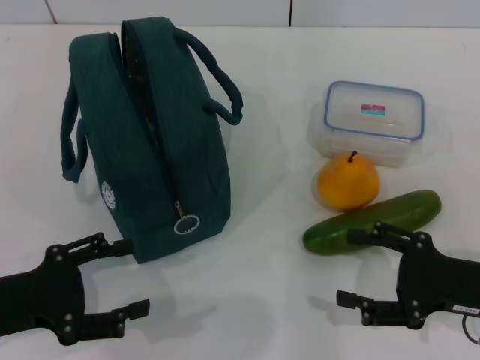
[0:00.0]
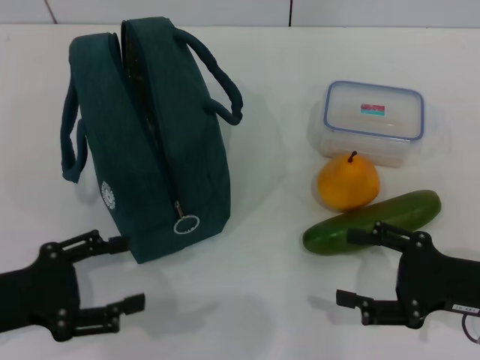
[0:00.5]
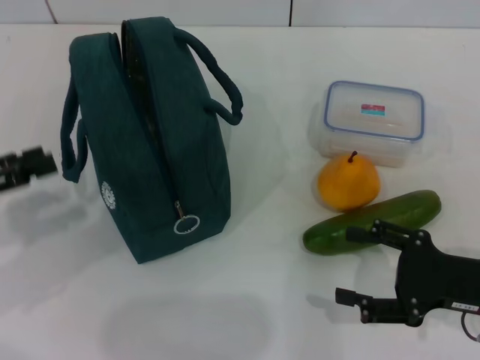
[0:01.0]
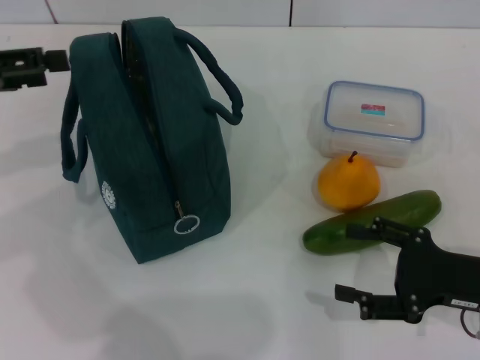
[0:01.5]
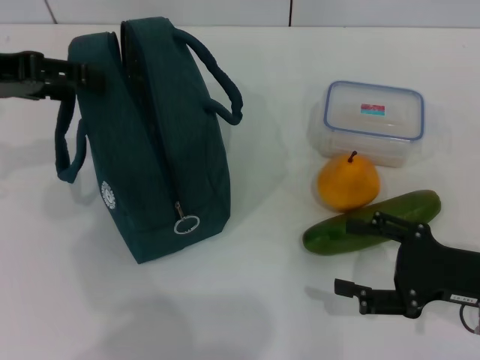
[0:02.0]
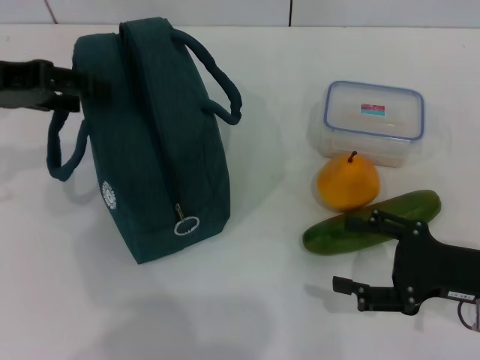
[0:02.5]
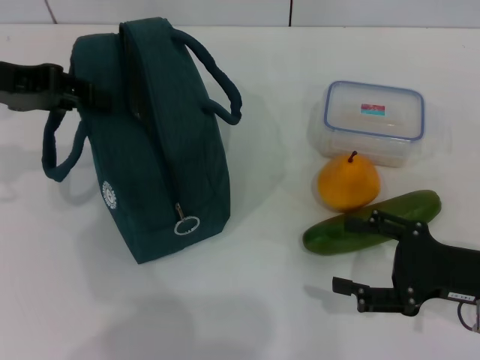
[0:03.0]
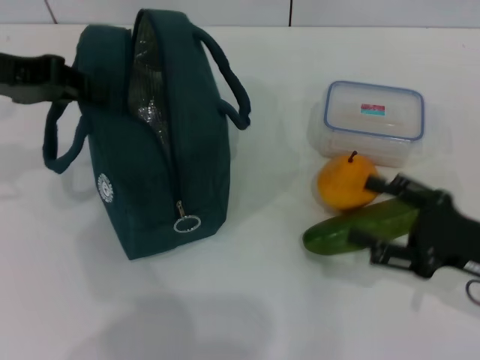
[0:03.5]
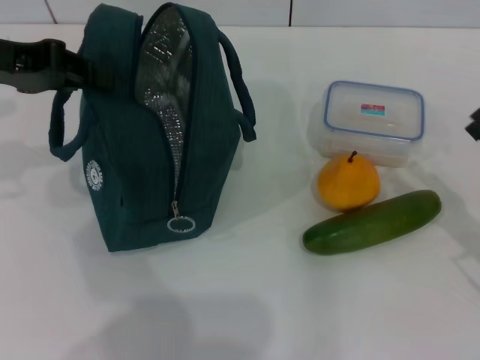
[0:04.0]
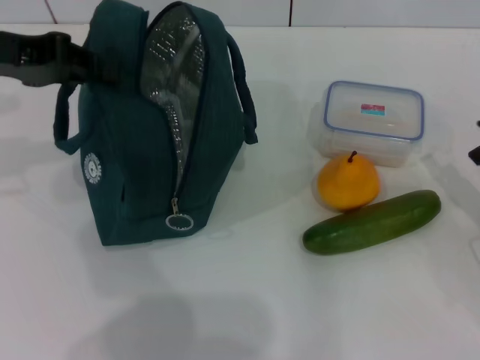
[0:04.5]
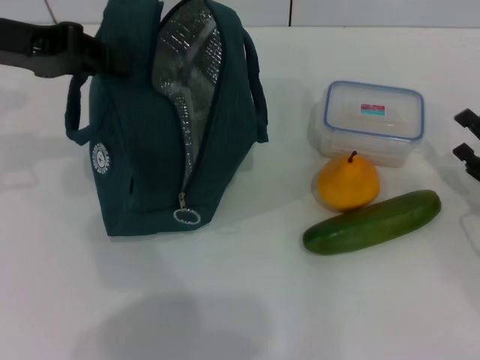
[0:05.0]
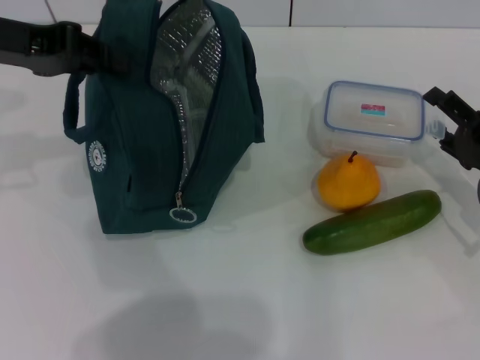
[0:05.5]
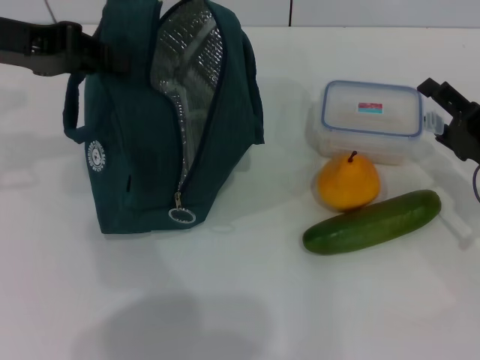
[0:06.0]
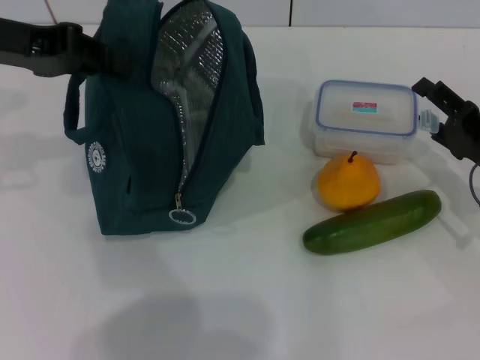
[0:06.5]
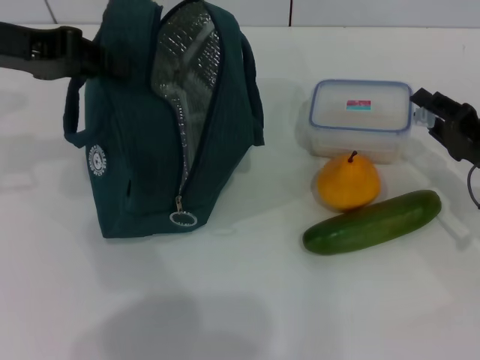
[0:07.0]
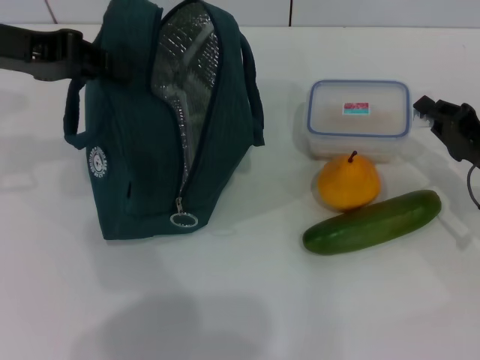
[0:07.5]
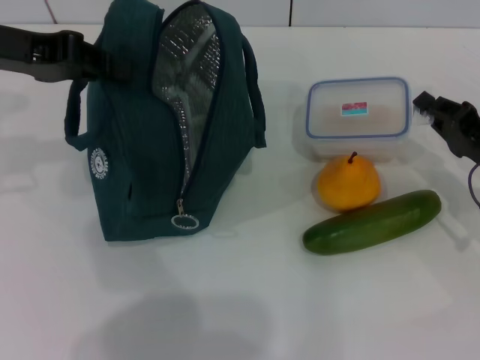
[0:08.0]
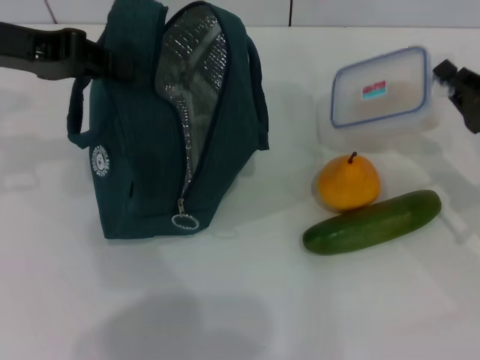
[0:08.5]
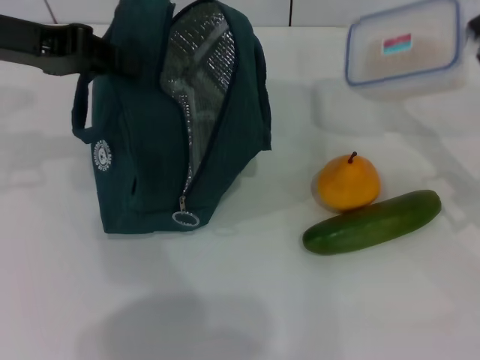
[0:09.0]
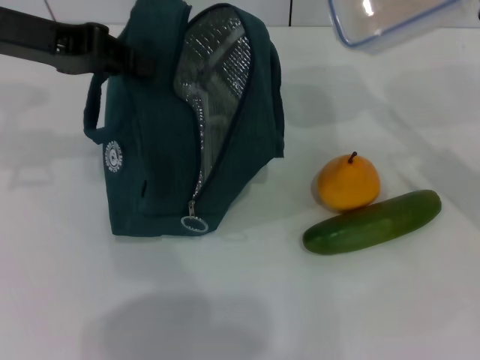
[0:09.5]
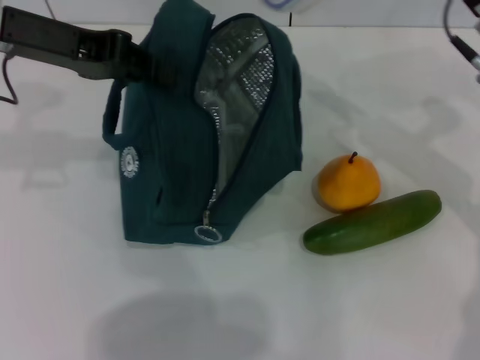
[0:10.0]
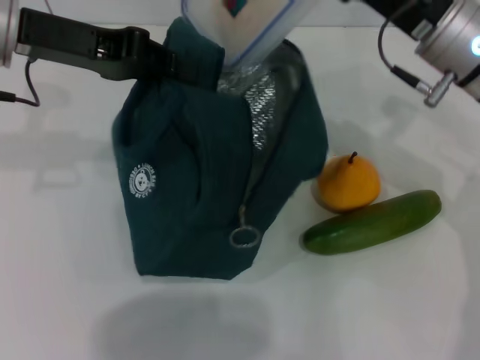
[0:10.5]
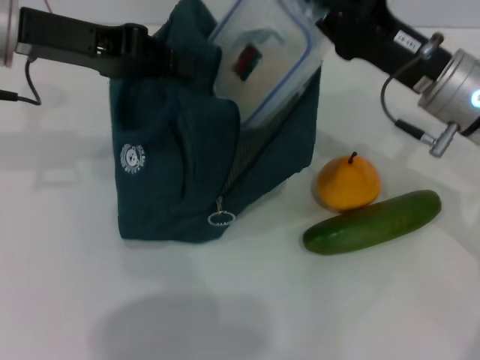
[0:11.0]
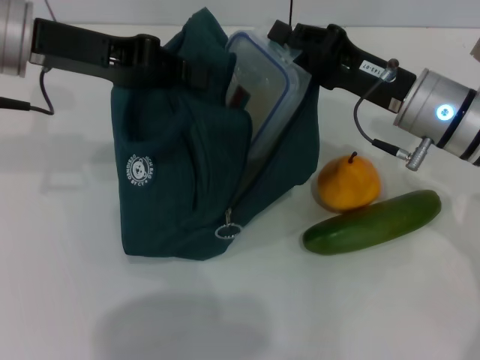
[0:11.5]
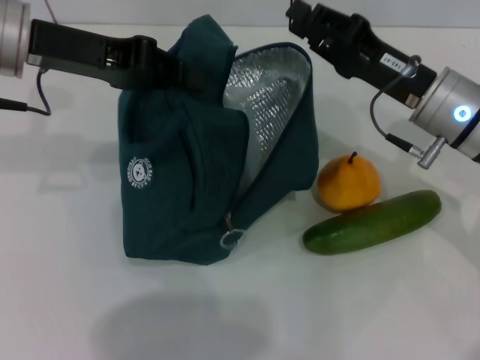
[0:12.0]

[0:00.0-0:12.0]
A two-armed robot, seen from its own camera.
Step, 0:00.0 to 0:03.5: Hold the lunch bag with your left hand.
Step, 0:04.0 to 0:07.5: Pick up the lunch box with your right hand.
0:00.0 to 0:02.0: The left gripper travels upward and forward by roughly 20 cm.
0:02.0 to 0:04.0: The left gripper closes up.
0:04.0 to 0:06.0: The right gripper travels forward by approximately 10 cm.
0:06.0 to 0:08.0: The right gripper closes.
0:08.0 to 0:10.0: The right gripper travels upward, to the left and forward by roughly 15 cm.
0:10.0 to 0:12.0: The right gripper goes roughly 5 cm downward.

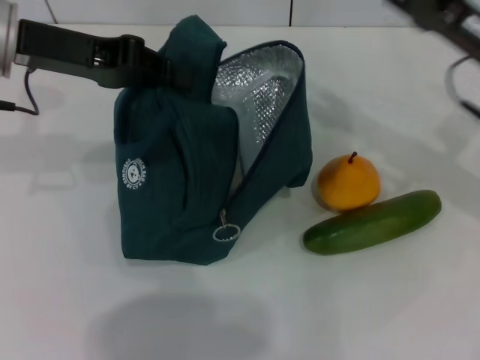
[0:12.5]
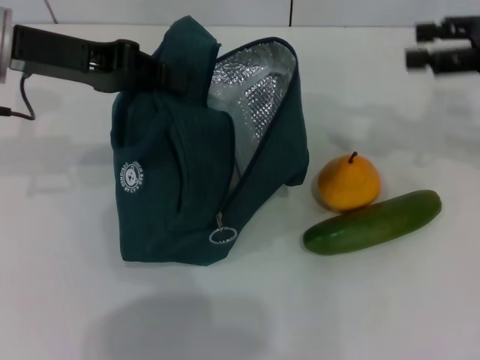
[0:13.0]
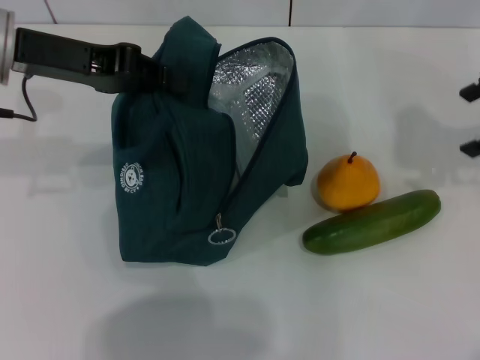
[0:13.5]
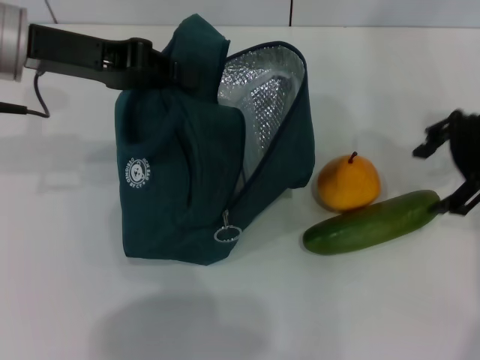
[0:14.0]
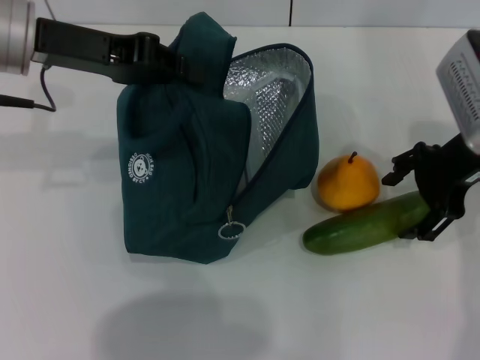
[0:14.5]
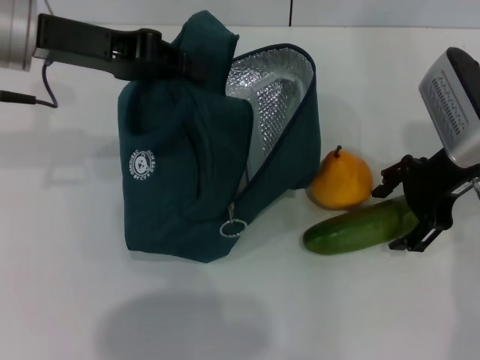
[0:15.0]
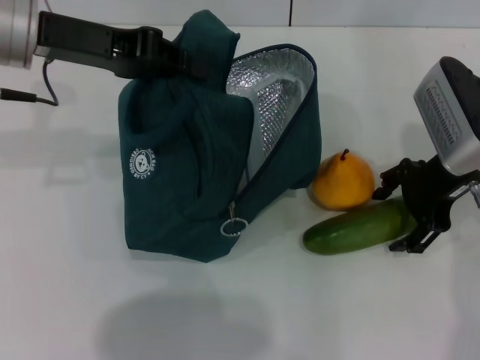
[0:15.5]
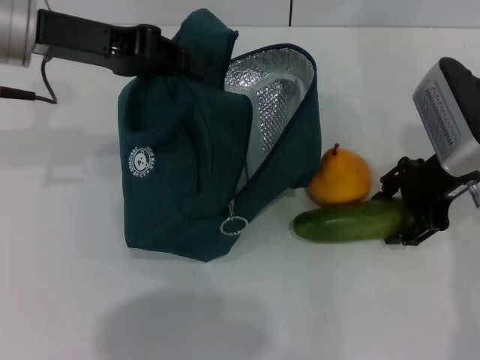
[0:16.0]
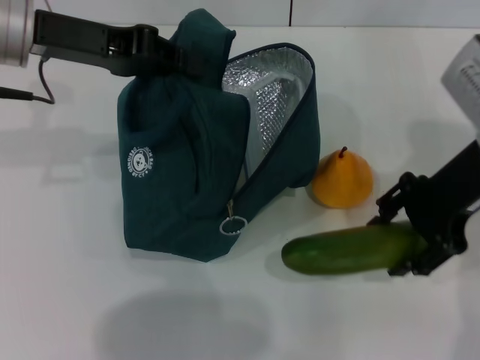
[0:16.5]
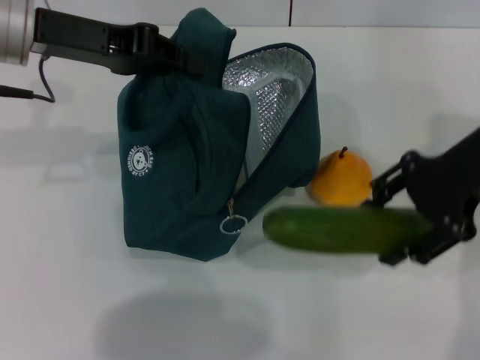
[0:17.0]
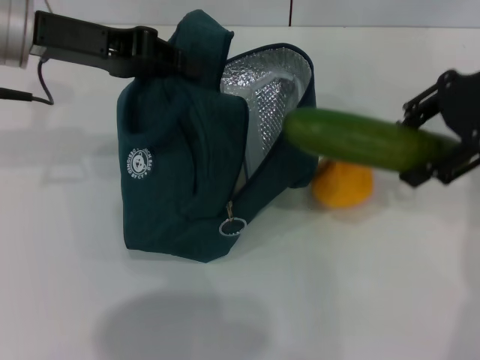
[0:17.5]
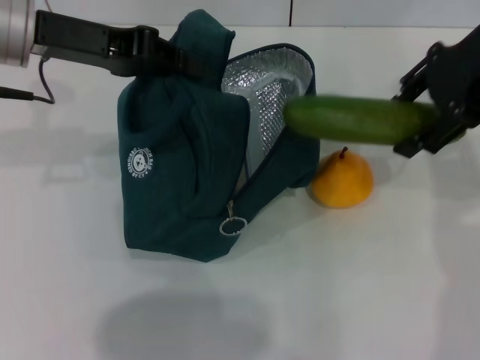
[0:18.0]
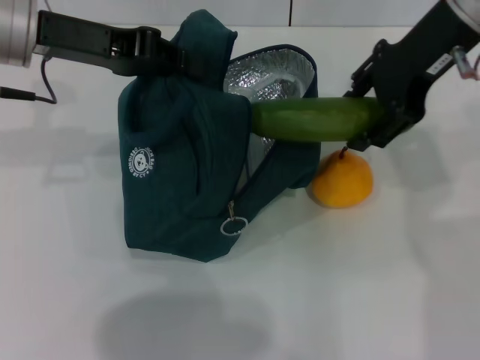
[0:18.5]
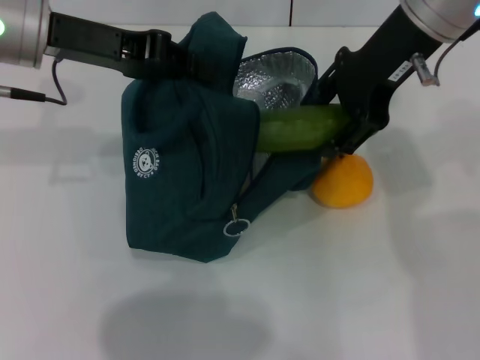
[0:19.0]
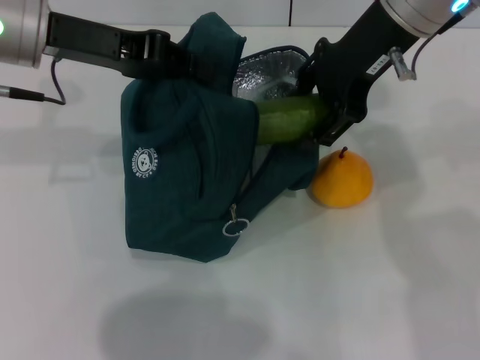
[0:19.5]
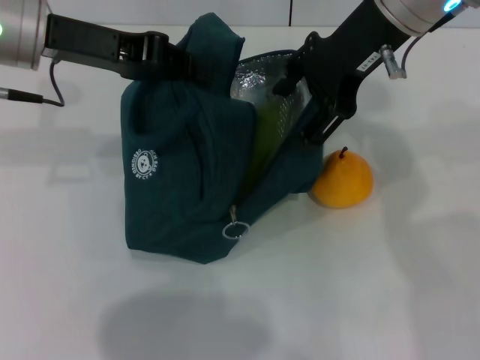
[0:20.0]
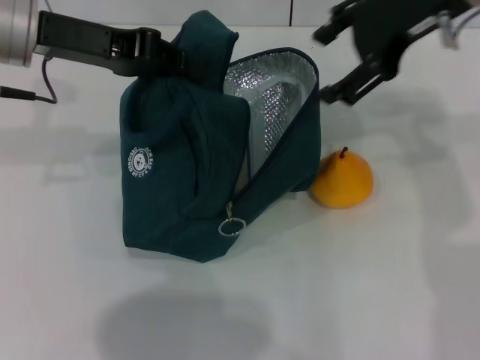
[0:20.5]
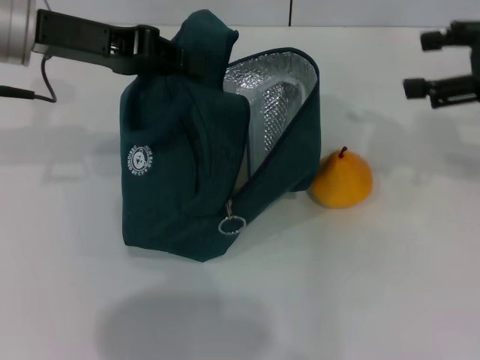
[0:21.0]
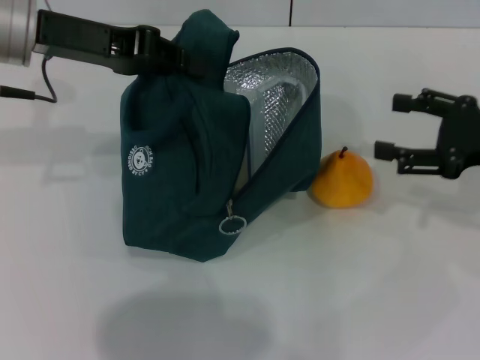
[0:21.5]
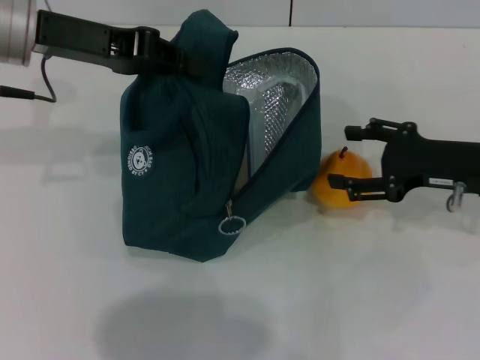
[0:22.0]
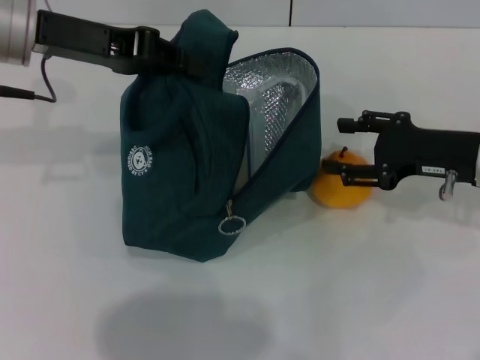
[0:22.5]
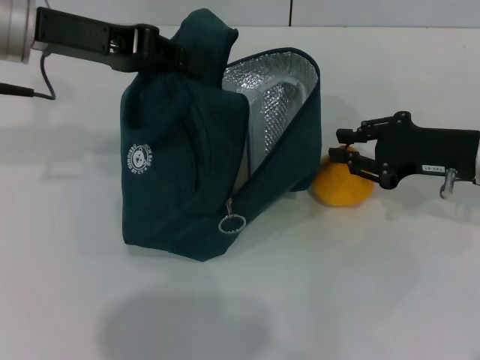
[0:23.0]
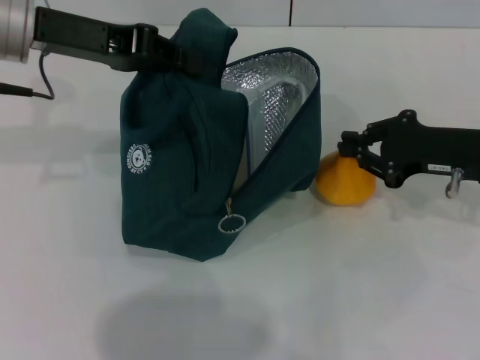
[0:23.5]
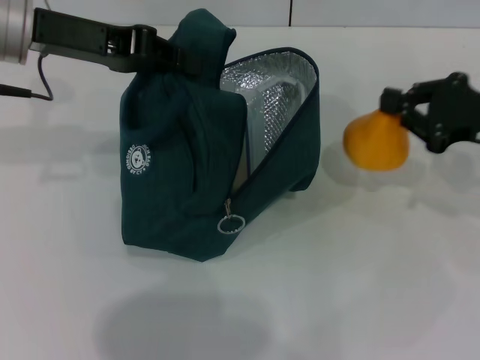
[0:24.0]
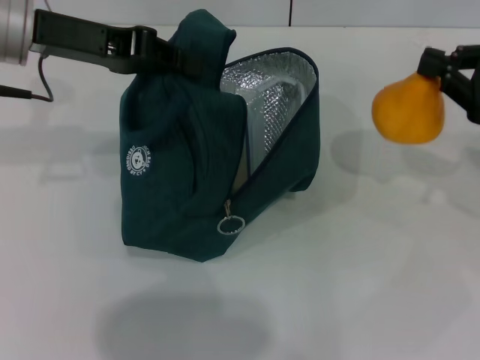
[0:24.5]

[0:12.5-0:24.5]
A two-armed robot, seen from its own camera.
Step, 0:12.5 to 0:15.5: Pick up the cucumber with your right hand.
Step, 0:16.0 to 0:20.5: Put the cucumber into the lunch bag with your right hand.
Step, 0:21.0 to 0:23.5: Grab the pear with your right hand.
0:12.5 to 0:14.5: The right gripper travels upward and back again, roughly 10 cm each way.
0:14.5 to 0:16.5: The grippers stay close to where they were, moving slightly.
0:16.5 to 0:18.5: The right gripper is displaced upward, forward and to the left by some 10 cm.
0:18.5 to 0:20.5: The grippers stay close to where they were, moving slightly.
0:20.5 to 0:22.5: The right gripper moves downward and to the right, roughly 20 cm.
0:22.5 to 0:24.5: The right gripper heads to the right and upward, covering about 10 cm, and closes.

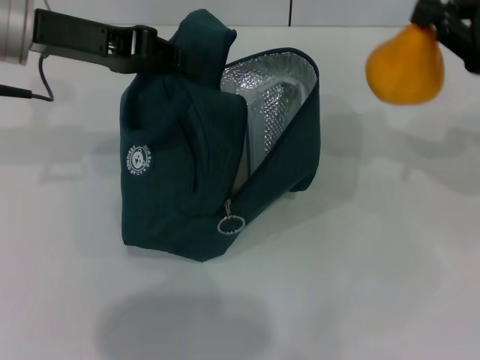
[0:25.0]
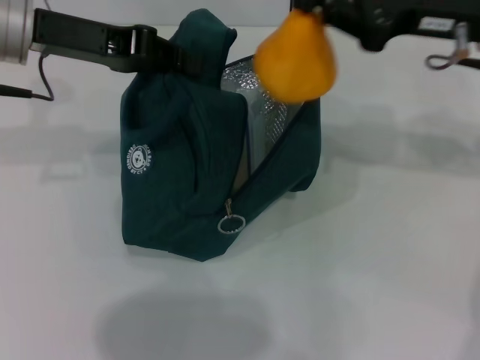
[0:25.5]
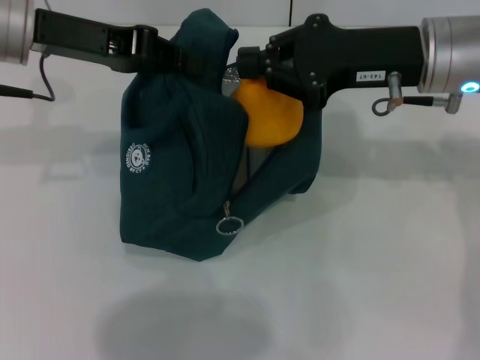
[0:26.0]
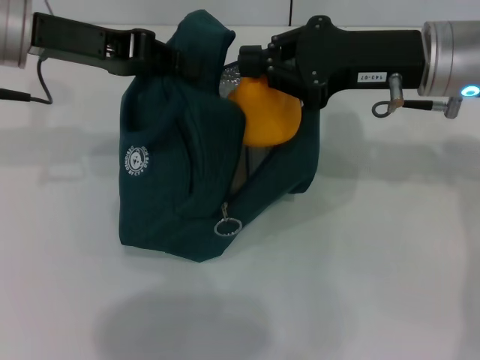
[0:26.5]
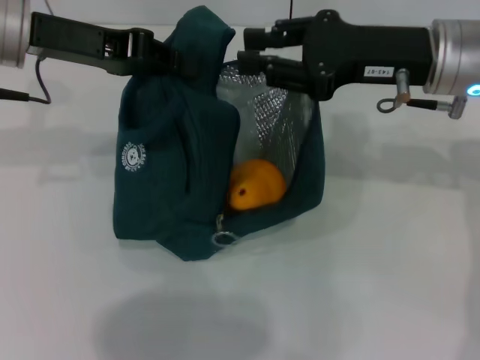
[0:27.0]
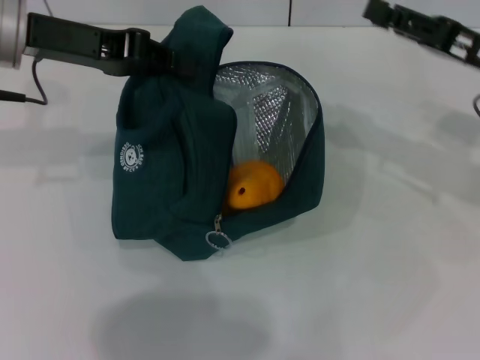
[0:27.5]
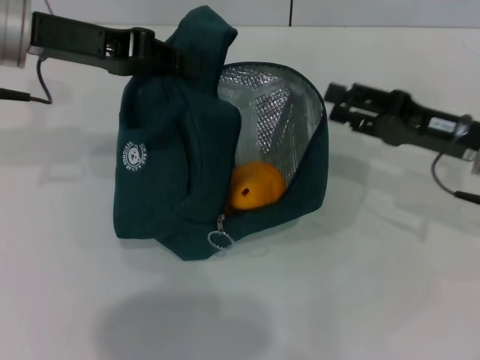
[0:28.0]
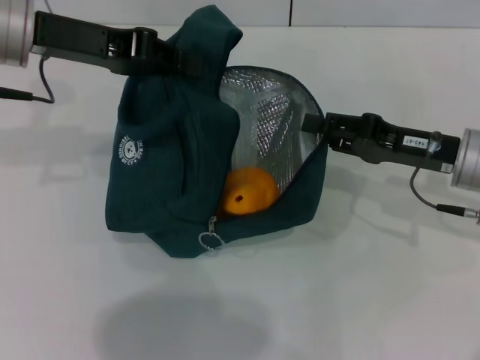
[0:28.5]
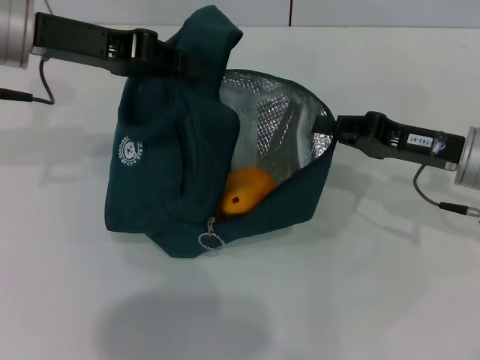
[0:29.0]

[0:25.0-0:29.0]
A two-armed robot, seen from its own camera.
0:25.0 to 0:27.0: The right gripper travels to the left by roughly 10 cm.
0:27.0 to 0:29.0: The right gripper goes approximately 10 cm downward and to the right, and opens, then closes once more.
